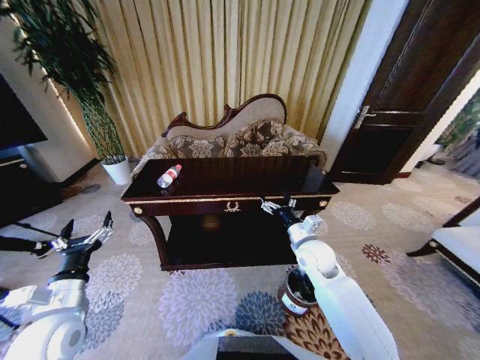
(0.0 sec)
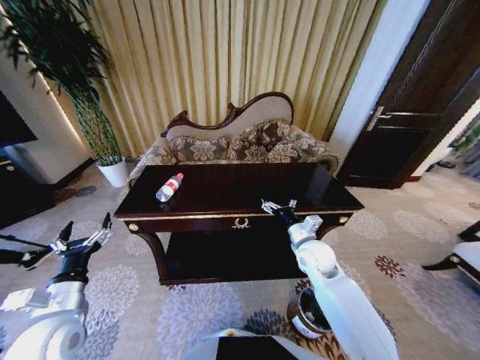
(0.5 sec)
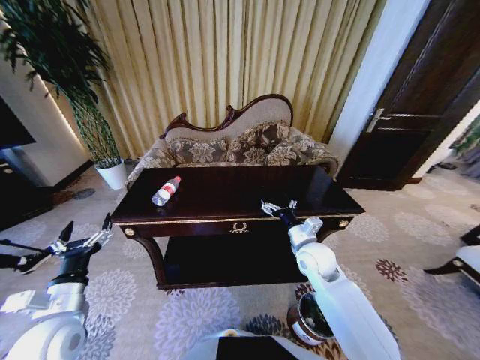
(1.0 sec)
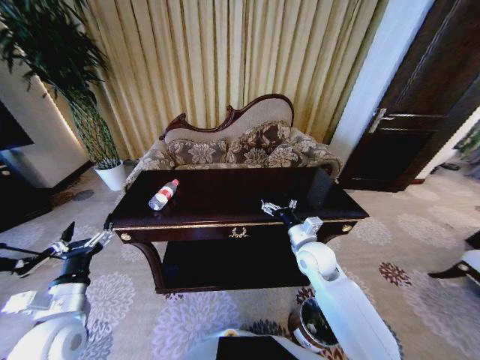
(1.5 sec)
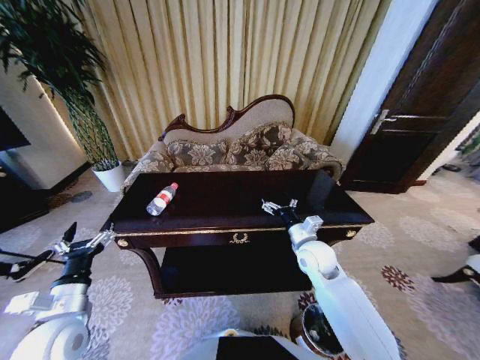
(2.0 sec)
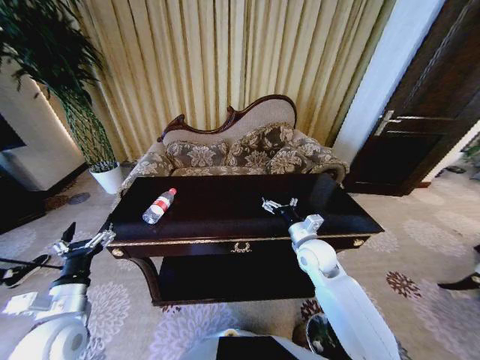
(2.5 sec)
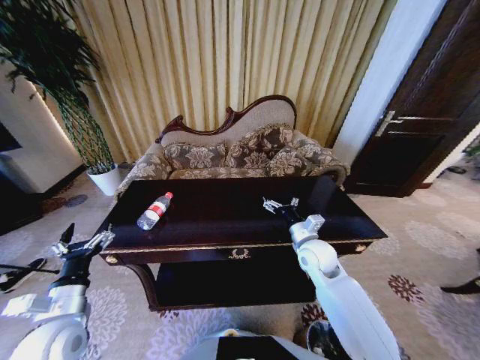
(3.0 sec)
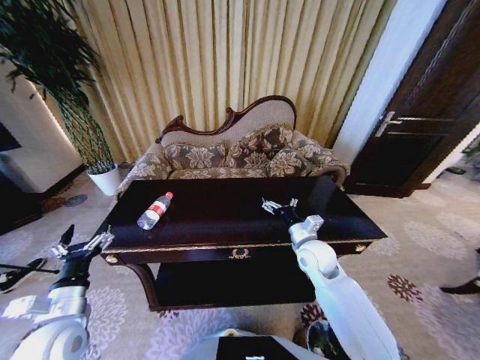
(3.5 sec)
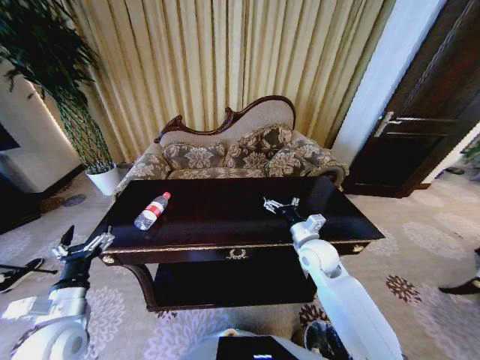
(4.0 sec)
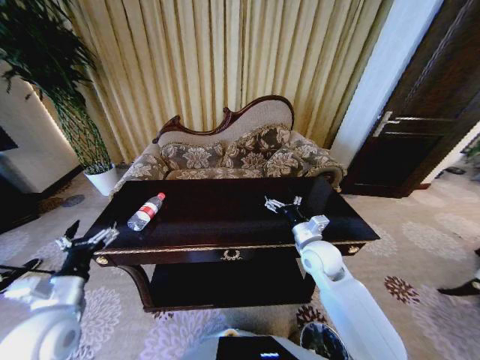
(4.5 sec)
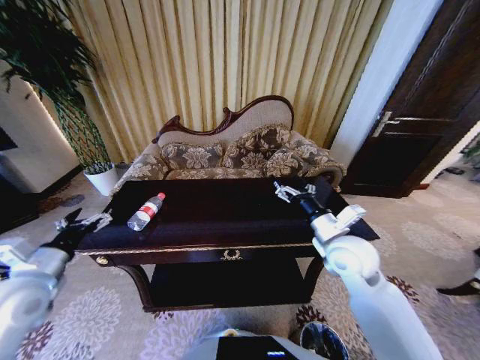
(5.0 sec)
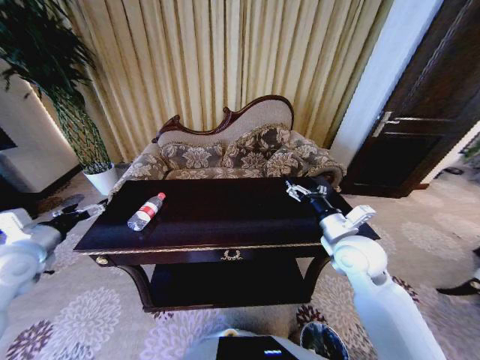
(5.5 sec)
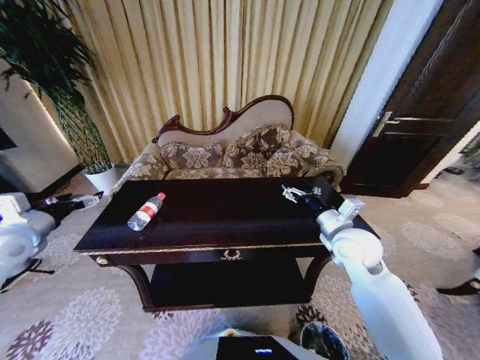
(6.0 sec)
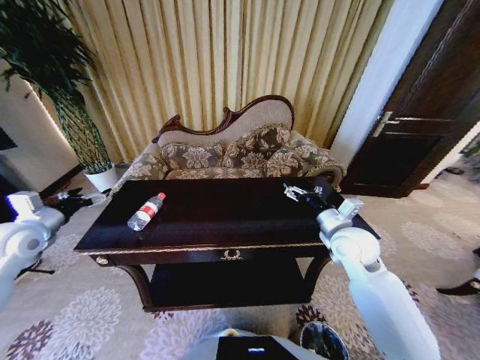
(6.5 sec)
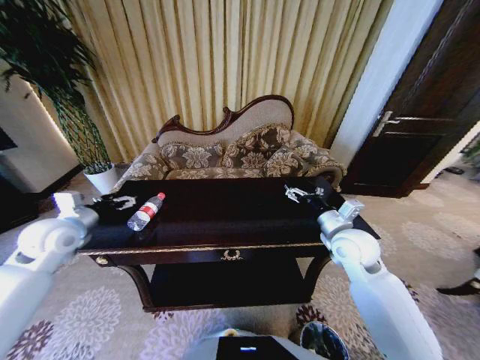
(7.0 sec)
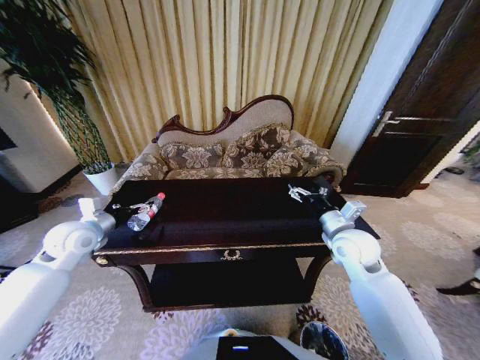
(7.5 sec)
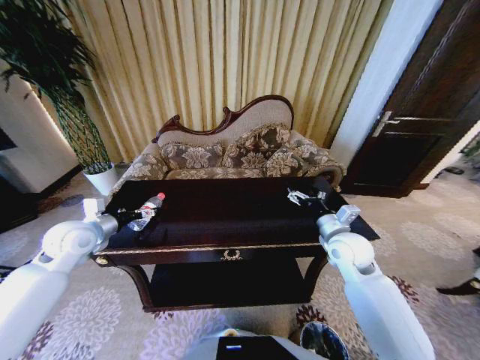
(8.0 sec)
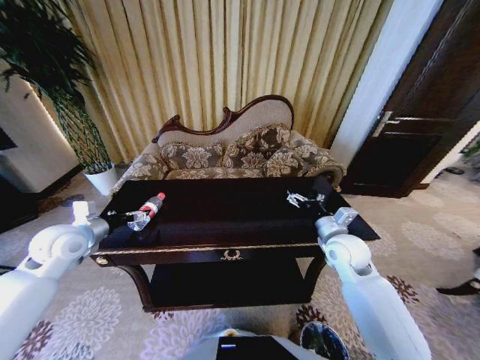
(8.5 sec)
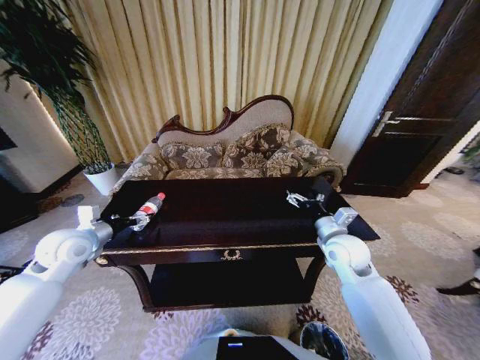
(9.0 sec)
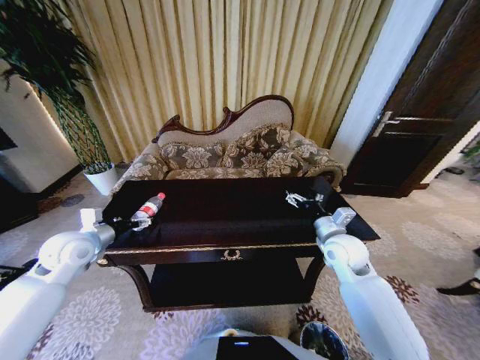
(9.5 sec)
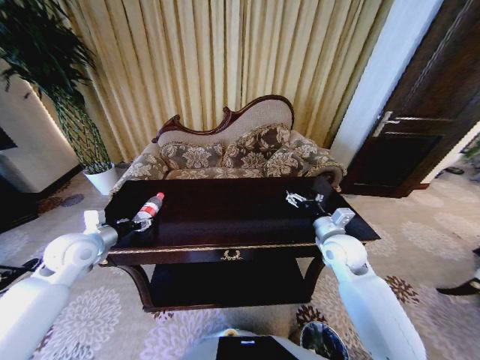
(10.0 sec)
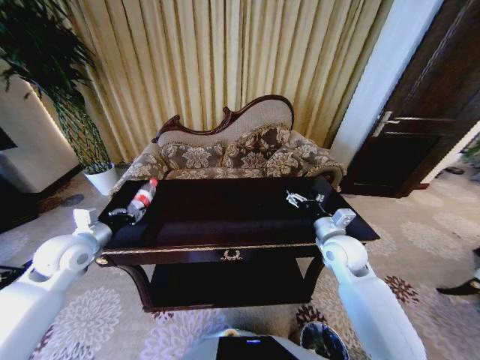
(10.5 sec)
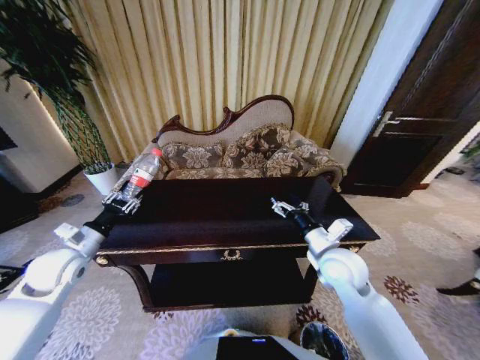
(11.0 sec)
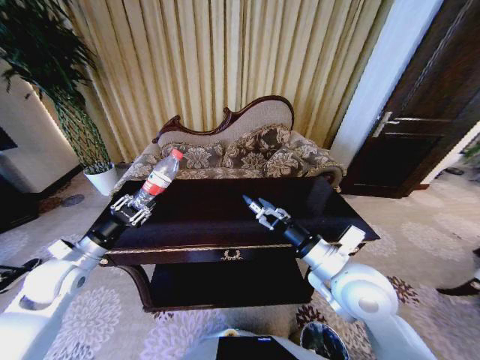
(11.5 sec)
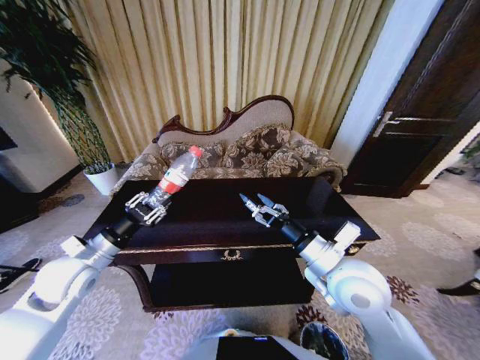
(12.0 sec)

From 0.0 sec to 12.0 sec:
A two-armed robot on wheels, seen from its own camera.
Task of the whole recording: Move to the front of the table and place the trash on the table into the trash bin.
From 4.0 sec to 6.0 sec: The left gripper moves forward, upward and to the left, approximately 25 cm. Meanwhile the right gripper moves upward and to the right, some 10 cm.
From 6.0 sec to 8.0 sec: The left gripper heads to the right and forward, covering about 10 cm.
From 8.0 sec to 10.0 sec: The left gripper closes.
From 10.0 sec to 12.0 sec: The left gripper is displaced backward by about 5 cm, and closes its fingers. The right gripper travels backward, upward and to the left by roughly 15 cm.

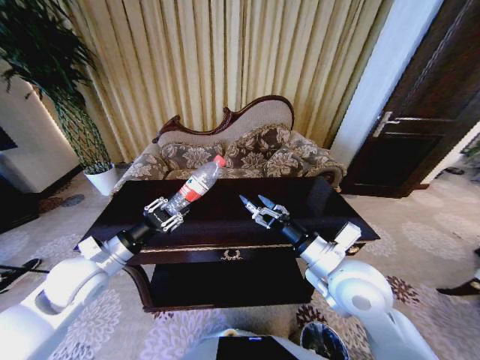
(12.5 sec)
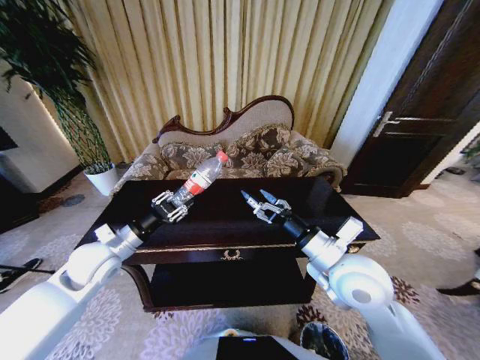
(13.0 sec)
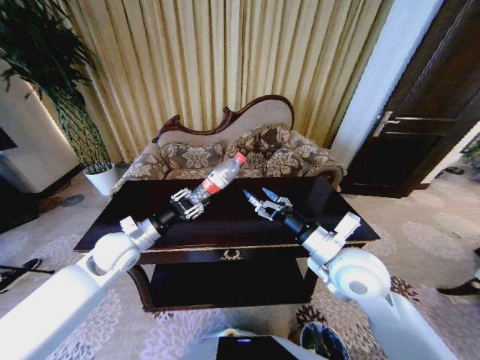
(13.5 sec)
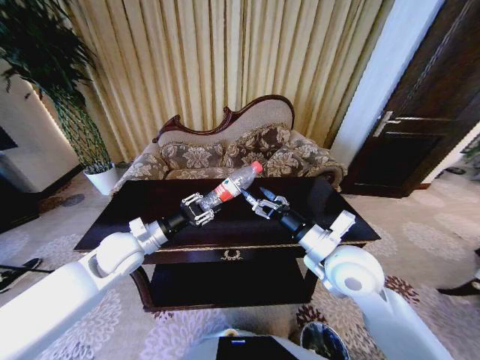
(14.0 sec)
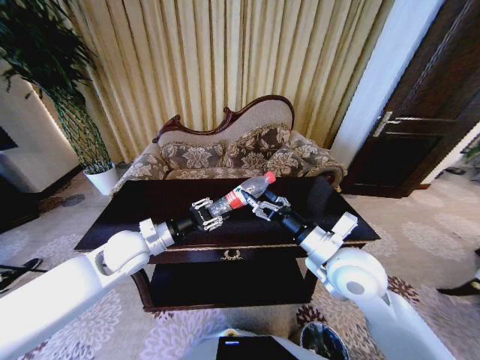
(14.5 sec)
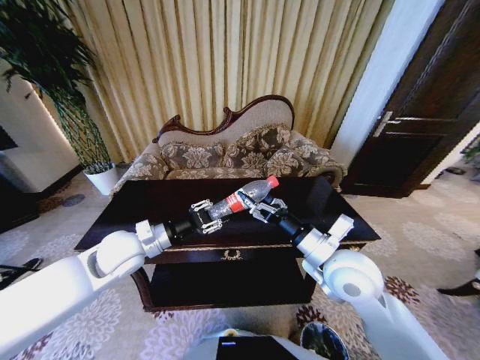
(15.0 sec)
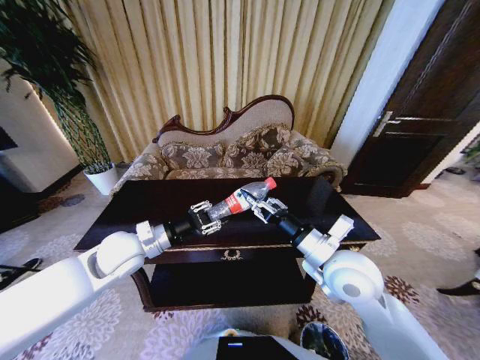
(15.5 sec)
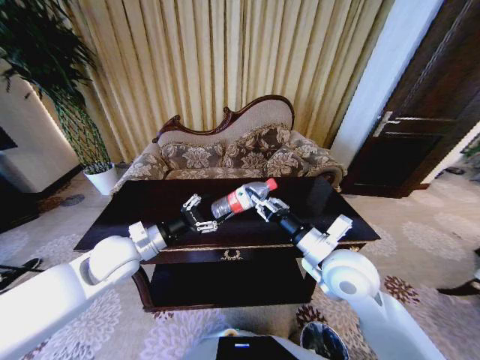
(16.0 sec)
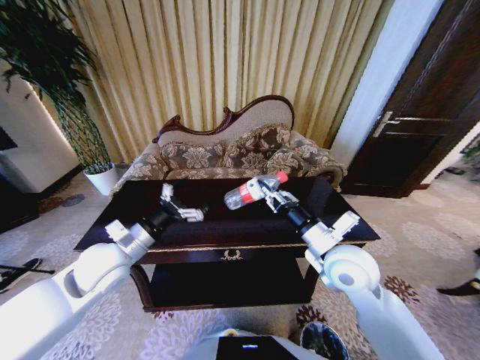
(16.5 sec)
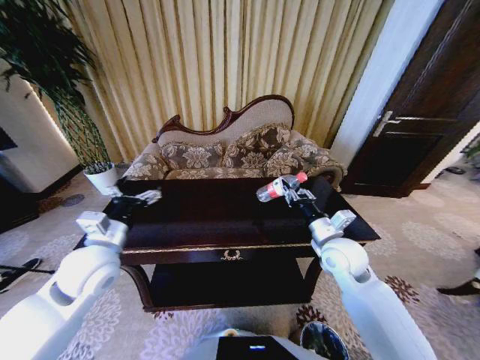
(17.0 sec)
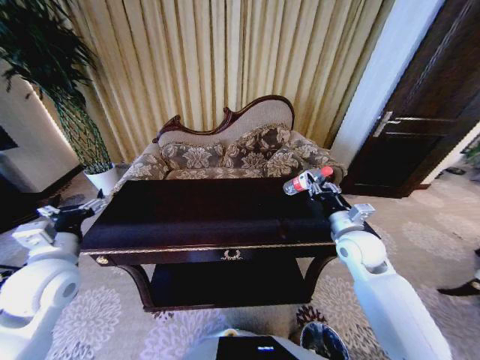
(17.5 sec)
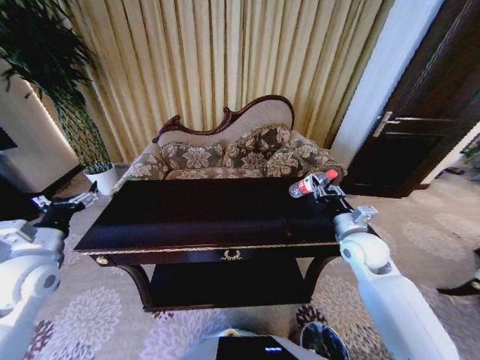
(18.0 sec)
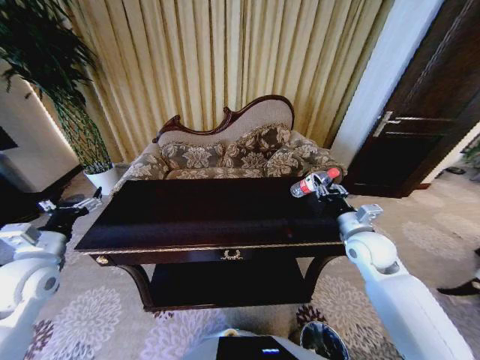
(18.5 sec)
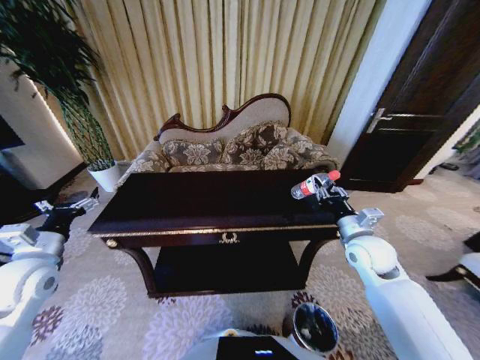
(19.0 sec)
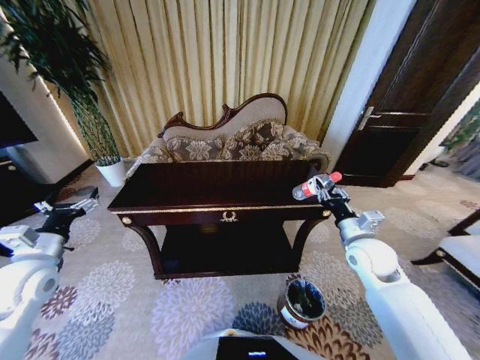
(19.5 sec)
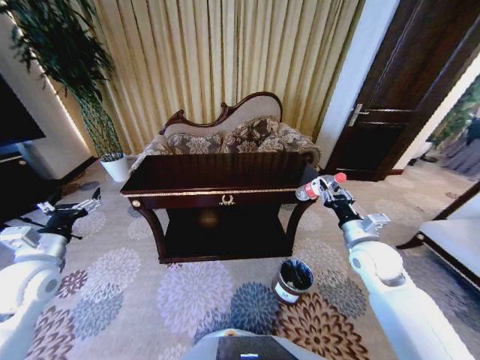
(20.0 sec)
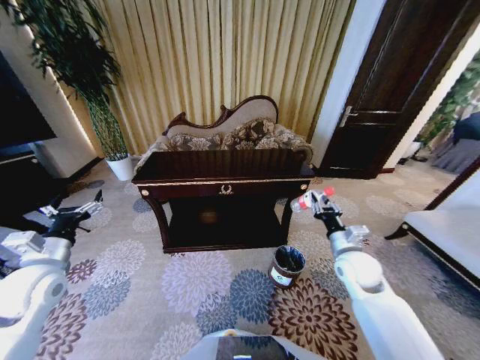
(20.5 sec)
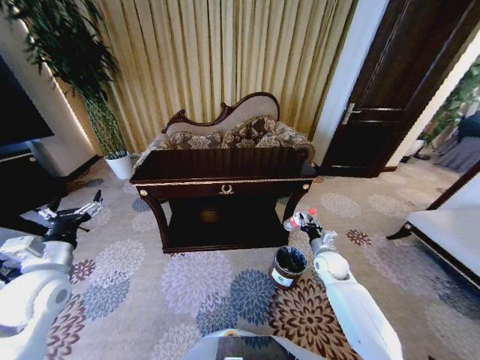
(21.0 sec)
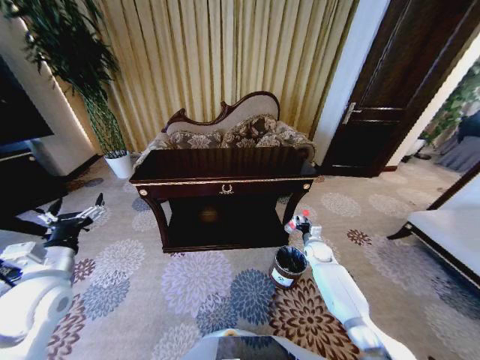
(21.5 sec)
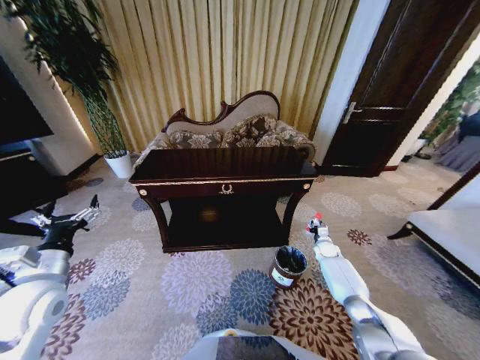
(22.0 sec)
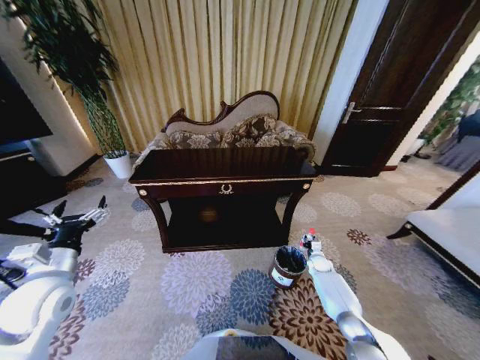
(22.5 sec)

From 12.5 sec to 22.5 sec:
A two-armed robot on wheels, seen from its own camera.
Task of the whole recording: Move to the front of the table and place the trash on the table into the trash bin.
From 12.5 sec to 14.5 sec: The left gripper heads to the right and forward, covering about 10 cm.
From 14.5 sec to 16.5 sec: The right gripper closes; the left gripper shifts by about 5 cm, and opens its fingers.
From 16.5 sec to 18.5 sec: The left gripper shifts approximately 15 cm to the left. The right gripper goes about 15 cm to the right and forward.
From 18.5 sec to 20.5 sec: The right gripper shifts roughly 5 cm downward.
From 20.5 sec to 22.5 sec: The right gripper travels downward and forward by some 30 cm.

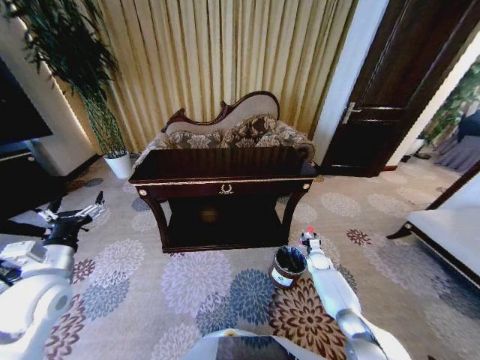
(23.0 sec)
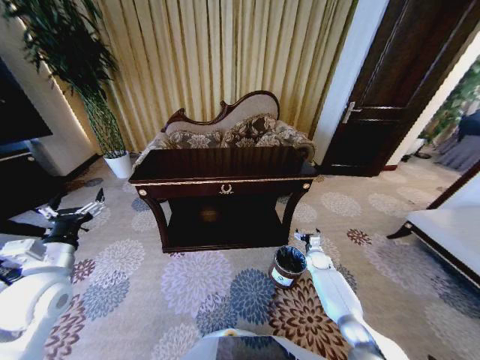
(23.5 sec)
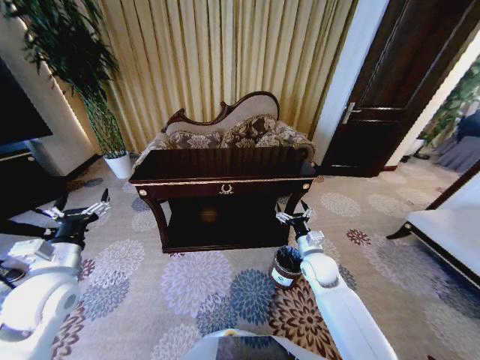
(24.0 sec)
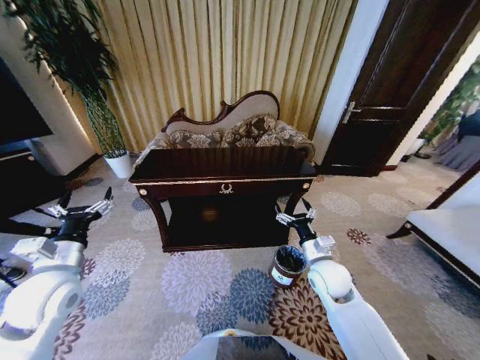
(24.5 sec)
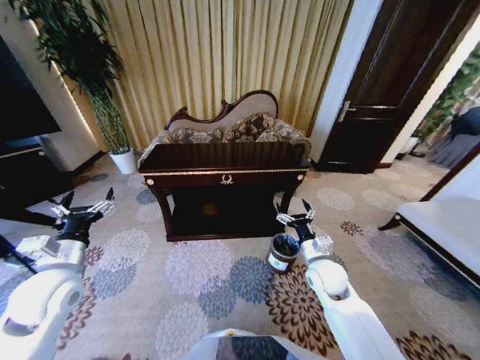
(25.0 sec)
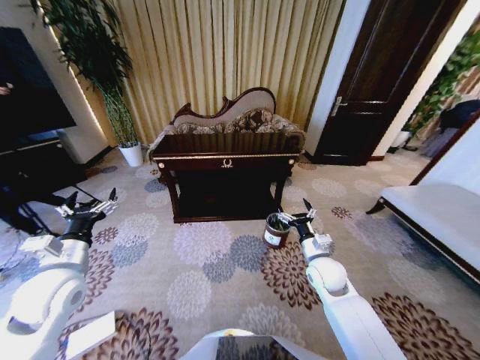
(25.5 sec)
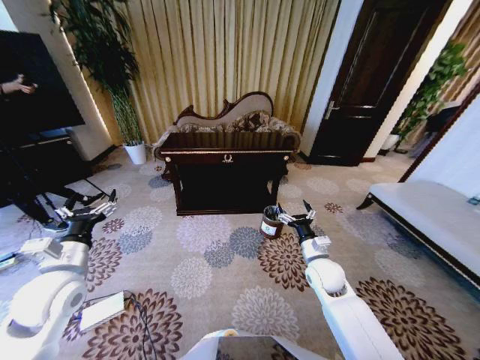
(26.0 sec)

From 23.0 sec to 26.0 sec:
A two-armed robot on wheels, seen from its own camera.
Task of the whole recording: Move to the front of the table and place the trash on the table into the trash bin.
From 23.0 sec to 24.5 sec: The right gripper moves upward, to the left and backward, roughly 30 cm, and opens up.
